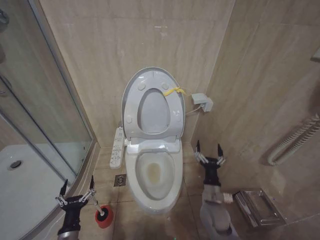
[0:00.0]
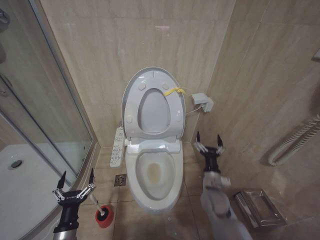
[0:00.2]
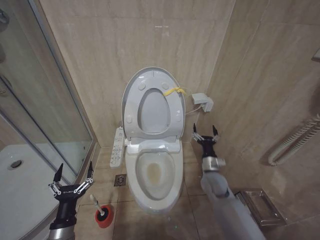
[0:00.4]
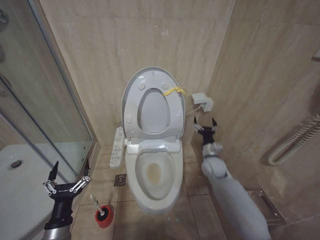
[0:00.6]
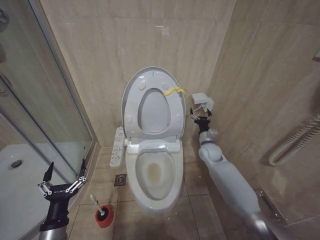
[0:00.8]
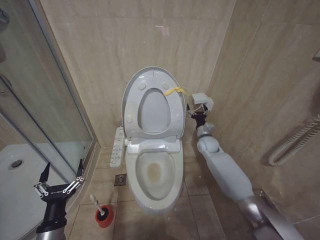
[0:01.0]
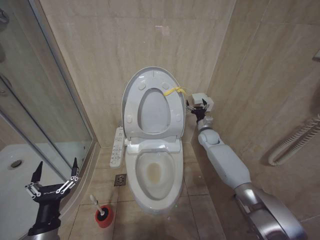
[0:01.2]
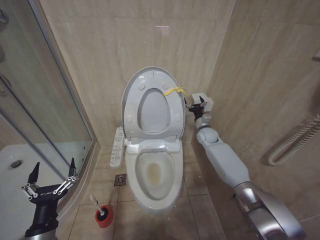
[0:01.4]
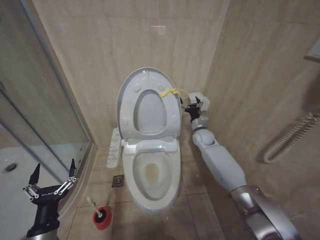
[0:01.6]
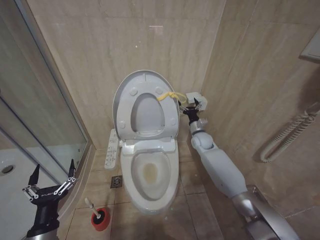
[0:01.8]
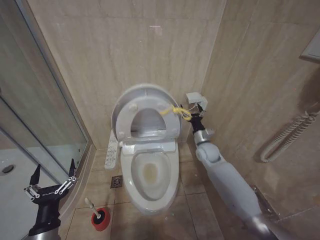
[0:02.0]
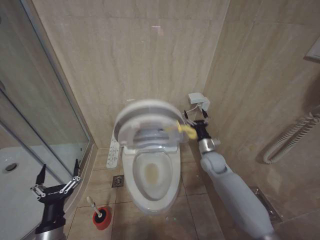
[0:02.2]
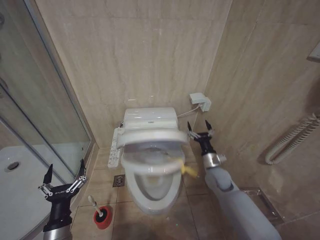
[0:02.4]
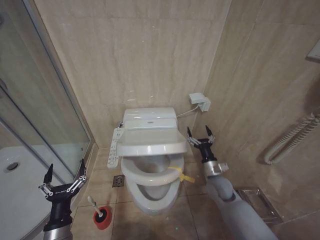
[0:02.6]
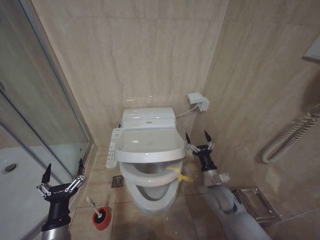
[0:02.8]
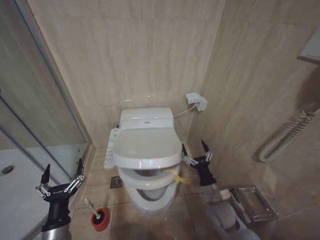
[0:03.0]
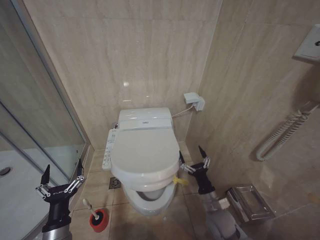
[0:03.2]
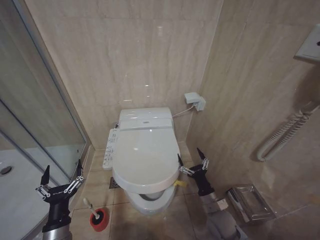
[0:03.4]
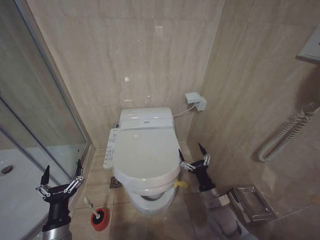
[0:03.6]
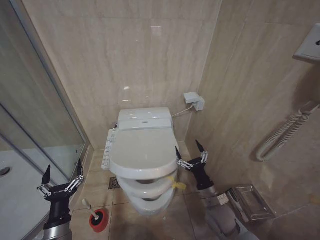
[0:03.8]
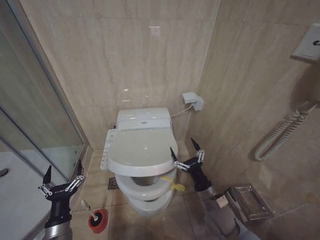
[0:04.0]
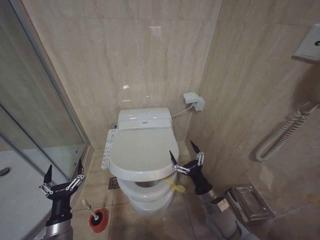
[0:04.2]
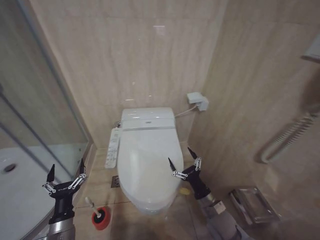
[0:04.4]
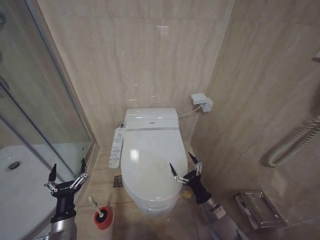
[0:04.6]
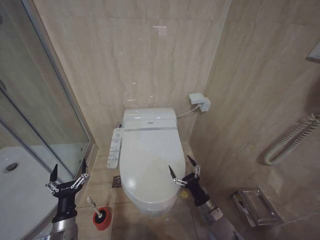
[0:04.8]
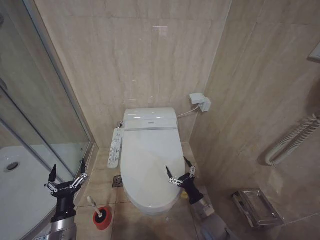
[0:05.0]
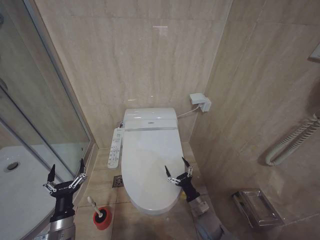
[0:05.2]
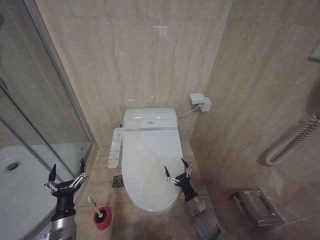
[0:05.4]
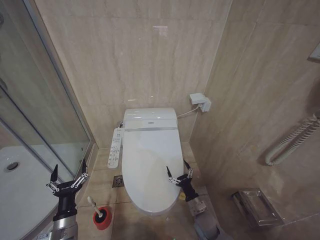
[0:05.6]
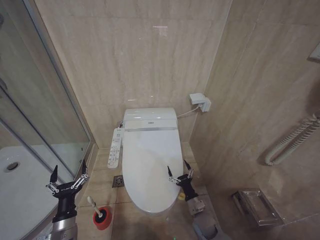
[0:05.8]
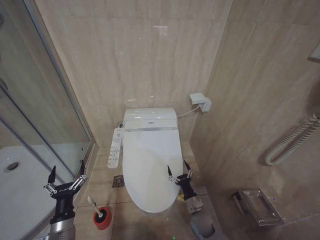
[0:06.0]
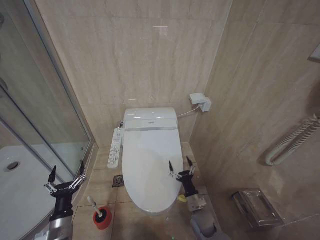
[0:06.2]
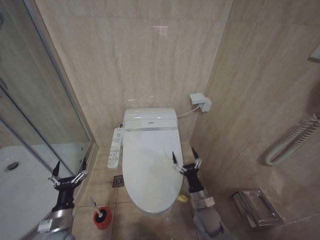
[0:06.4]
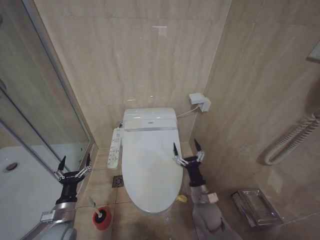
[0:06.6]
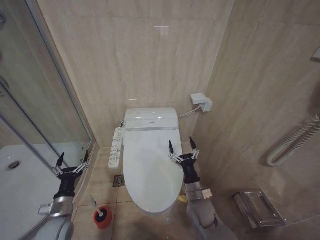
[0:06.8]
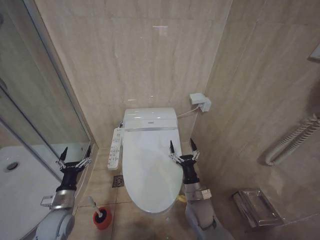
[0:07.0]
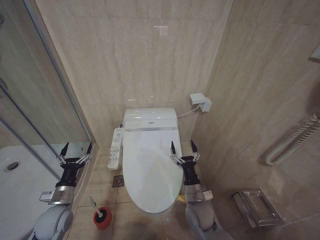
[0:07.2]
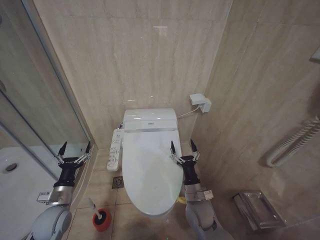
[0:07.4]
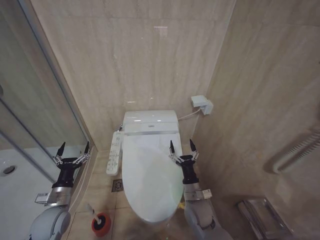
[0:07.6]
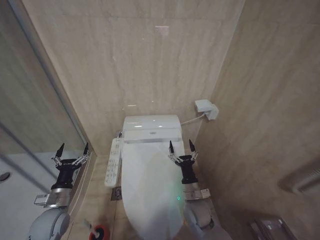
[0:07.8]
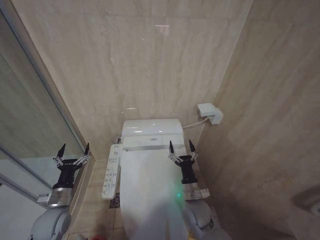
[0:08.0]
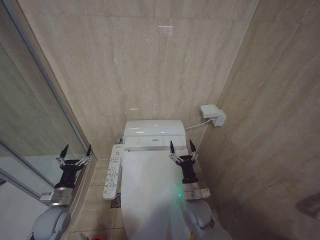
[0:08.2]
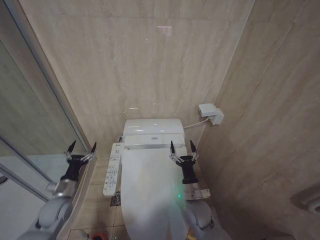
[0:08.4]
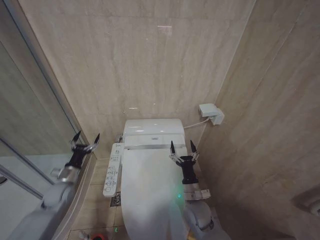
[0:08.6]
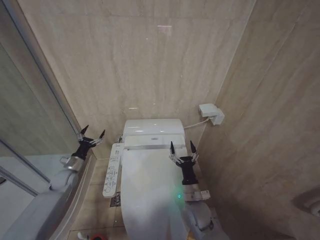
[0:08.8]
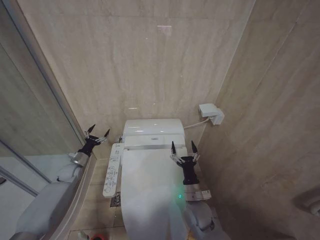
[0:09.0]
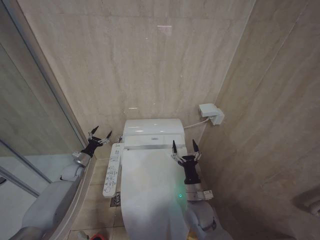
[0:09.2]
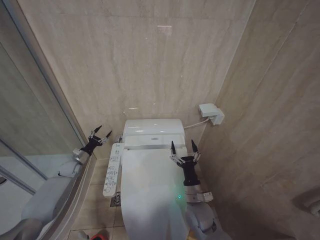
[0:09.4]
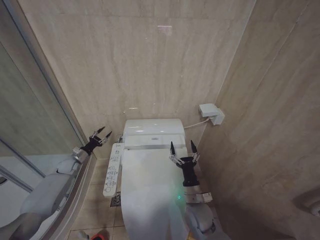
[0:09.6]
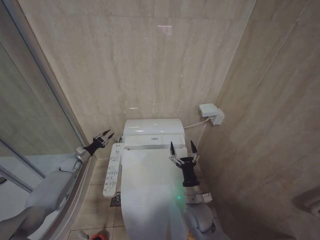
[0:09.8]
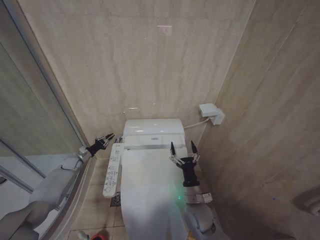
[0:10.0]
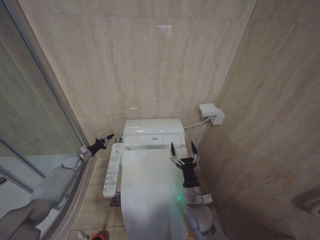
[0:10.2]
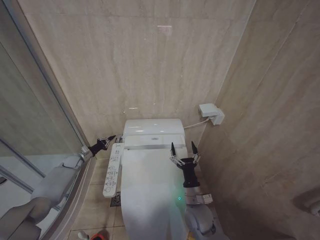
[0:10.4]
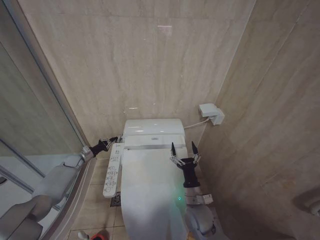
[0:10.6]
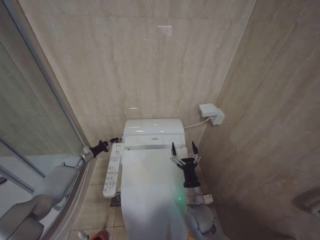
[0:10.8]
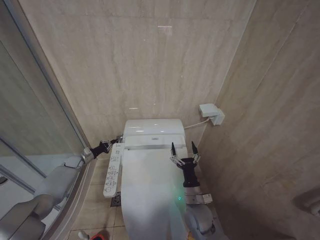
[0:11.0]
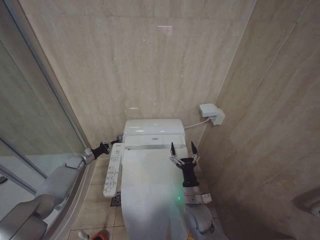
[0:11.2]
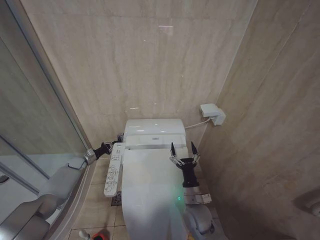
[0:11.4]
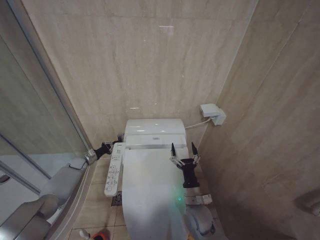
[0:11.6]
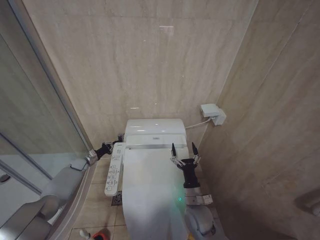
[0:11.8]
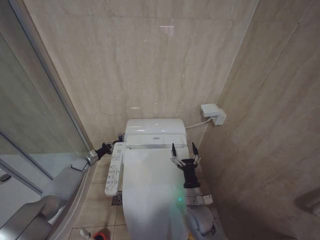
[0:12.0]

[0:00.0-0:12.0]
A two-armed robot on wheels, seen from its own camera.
Task of the whole recording: Open the toilet lid, clean the toilet bowl with a toilet brush, close the toilet lid, and flush.
0:00.0 to 0:01.6: The left gripper travels upward by approximately 15 cm. The right gripper goes about 35 cm forward and upward.
0:01.6 to 0:03.0: The right gripper shifts roughly 30 cm backward and downward.
0:03.0 to 0:04.4: The grippers make only small movements.
0:04.4 to 0:06.0: The right gripper goes some 15 cm downward.
0:06.0 to 0:07.6: The right gripper heads upward, covering some 15 cm, while the left gripper travels forward and to the left by about 10 cm.
0:07.6 to 0:09.0: The left gripper moves forward, approximately 20 cm.
0:09.0 to 0:10.4: The left gripper goes about 5 cm forward, and closes.
0:10.4 to 0:12.0: The grippers make only small movements.

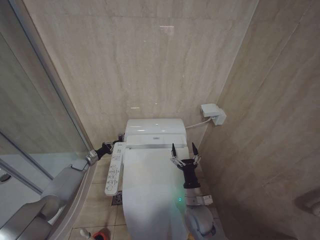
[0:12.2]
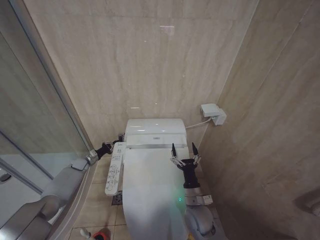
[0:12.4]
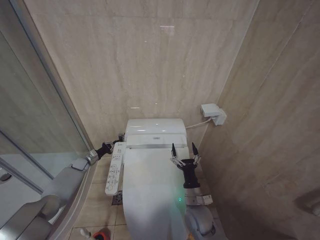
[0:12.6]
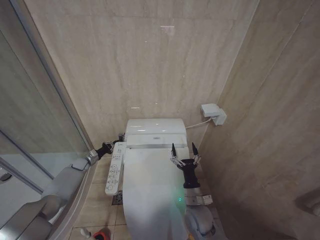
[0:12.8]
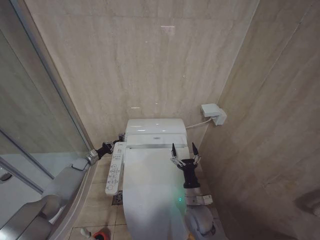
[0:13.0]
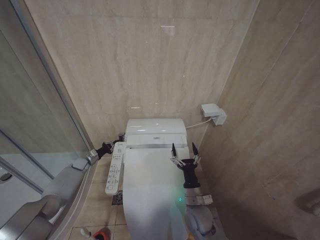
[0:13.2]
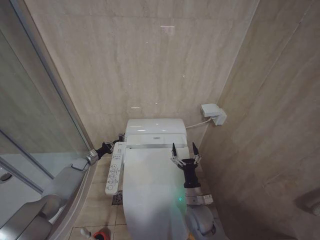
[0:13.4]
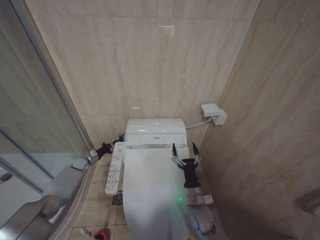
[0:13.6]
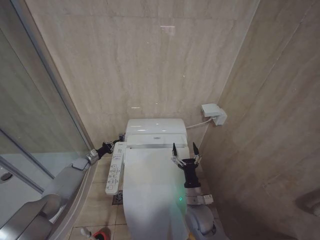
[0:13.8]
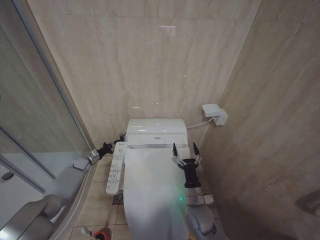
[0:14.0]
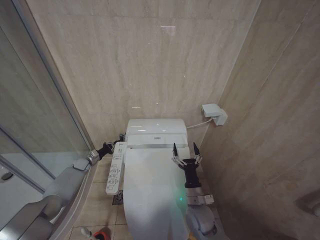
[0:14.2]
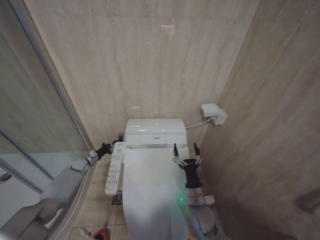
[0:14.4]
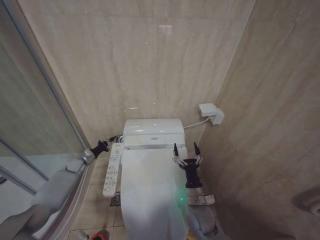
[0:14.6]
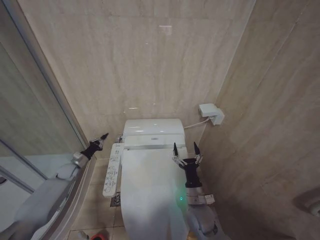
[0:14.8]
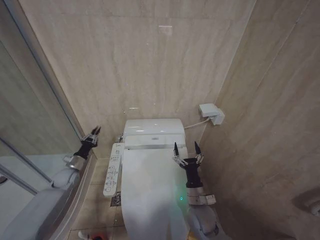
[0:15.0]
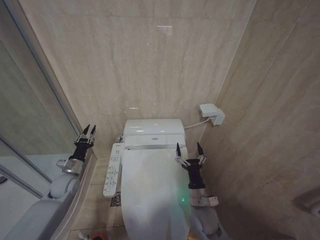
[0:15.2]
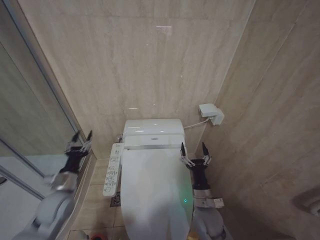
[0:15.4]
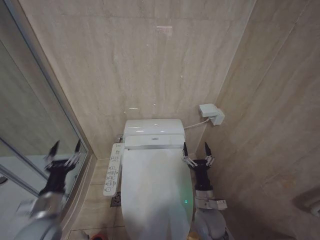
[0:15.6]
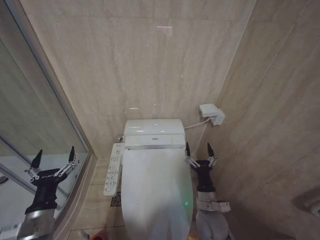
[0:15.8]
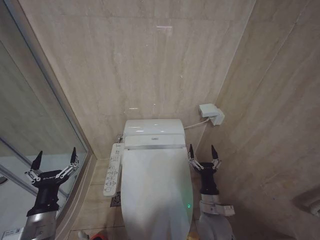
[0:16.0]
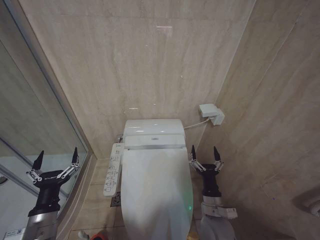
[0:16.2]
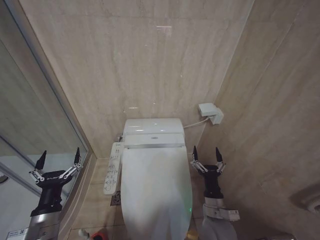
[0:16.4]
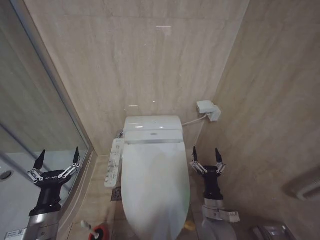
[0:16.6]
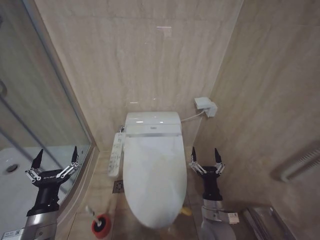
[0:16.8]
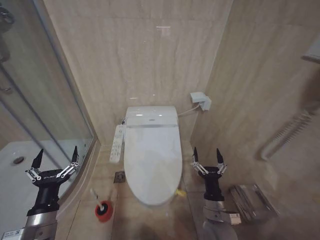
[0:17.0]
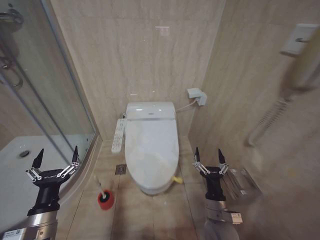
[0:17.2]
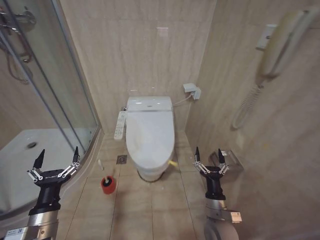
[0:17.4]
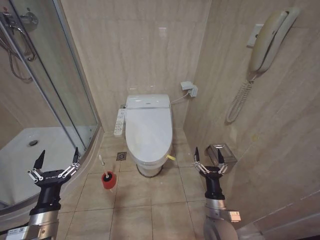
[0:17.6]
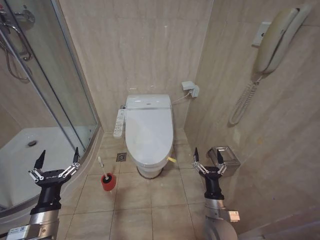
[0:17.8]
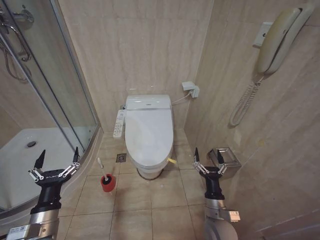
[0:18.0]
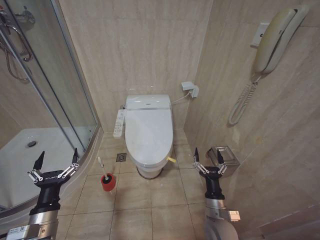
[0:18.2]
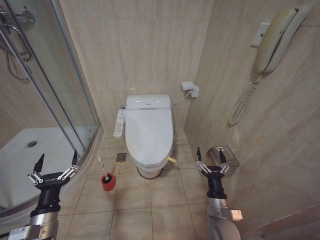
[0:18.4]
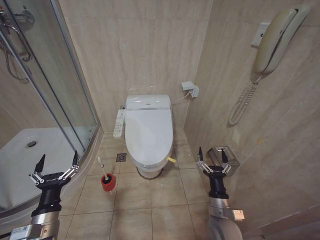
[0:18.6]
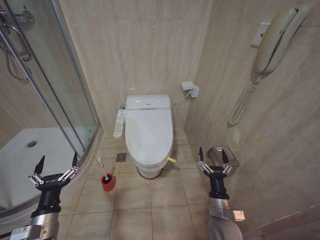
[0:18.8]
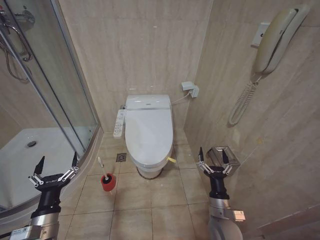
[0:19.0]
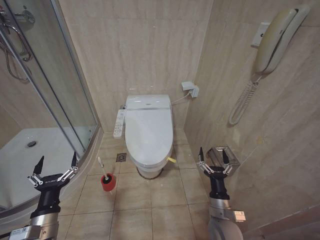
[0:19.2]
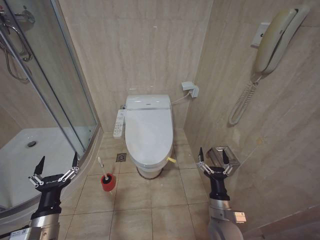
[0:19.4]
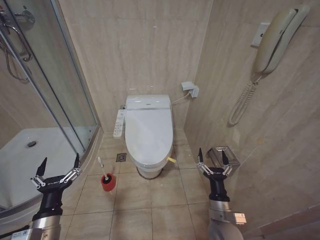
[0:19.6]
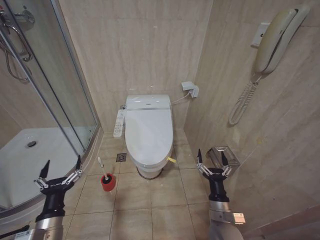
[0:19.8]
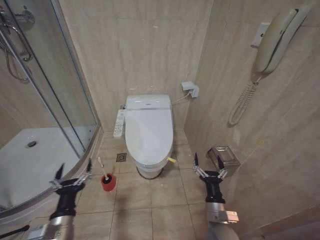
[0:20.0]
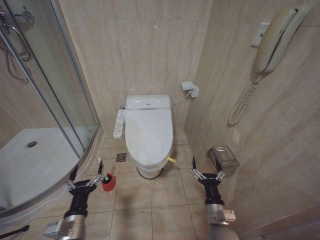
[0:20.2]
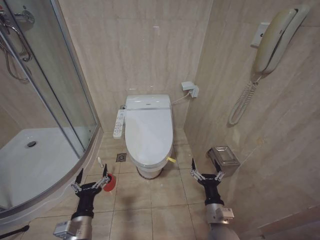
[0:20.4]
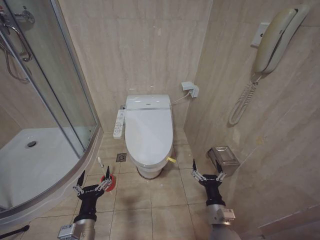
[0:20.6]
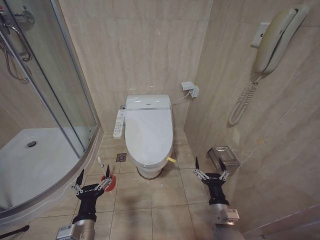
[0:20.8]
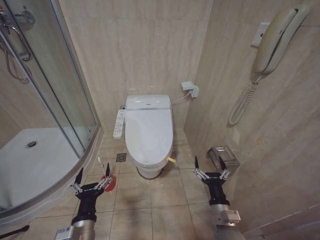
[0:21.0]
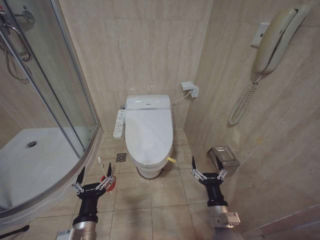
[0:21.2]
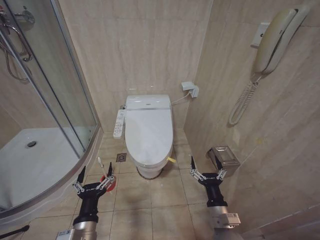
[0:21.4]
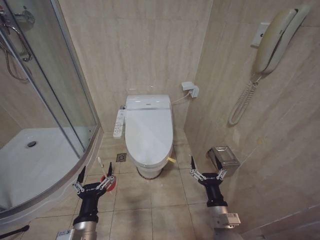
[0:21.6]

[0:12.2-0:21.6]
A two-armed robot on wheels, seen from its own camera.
Task of the whole recording: Open the toilet lid, clean the toilet bowl with a toilet brush, close the toilet lid, and flush.
0:12.2 to 0:13.8: The two grippers keep their place.
0:13.8 to 0:15.4: The left gripper heads backward and upward, covering approximately 25 cm.
0:15.4 to 0:17.0: The right gripper changes place by approximately 5 cm. Meanwhile the left gripper shifts approximately 15 cm backward, and opens.
0:18.4 to 0:20.0: The grippers make only small movements.
0:20.0 to 0:21.6: The left gripper is displaced to the right by about 10 cm.
